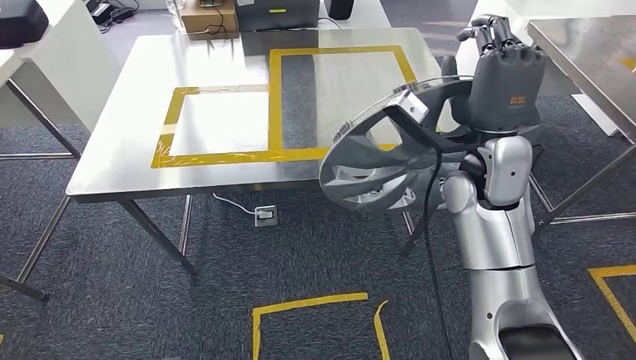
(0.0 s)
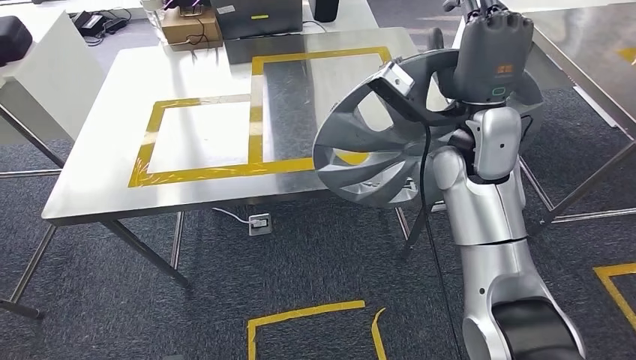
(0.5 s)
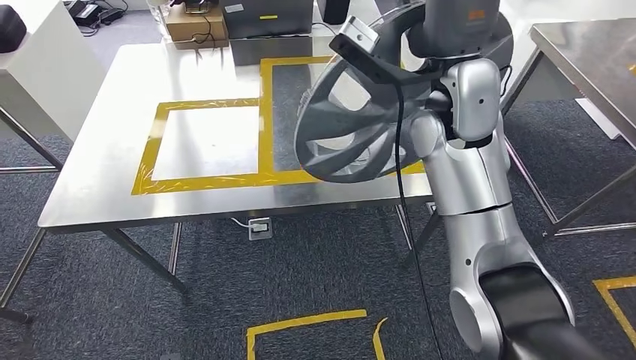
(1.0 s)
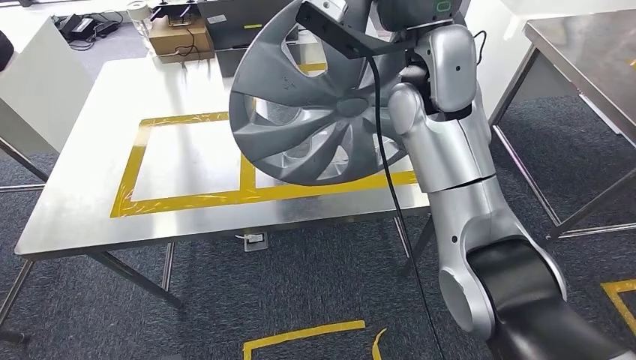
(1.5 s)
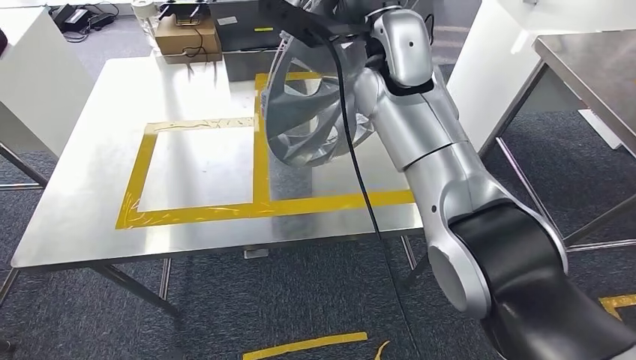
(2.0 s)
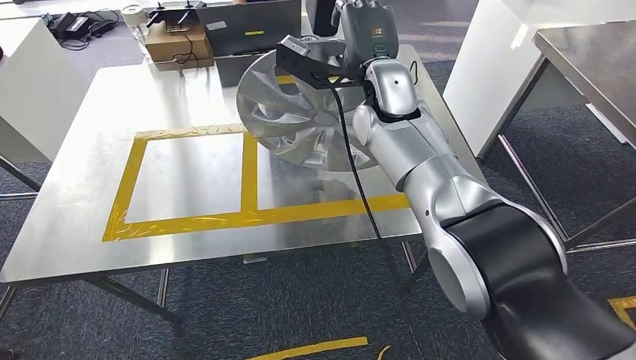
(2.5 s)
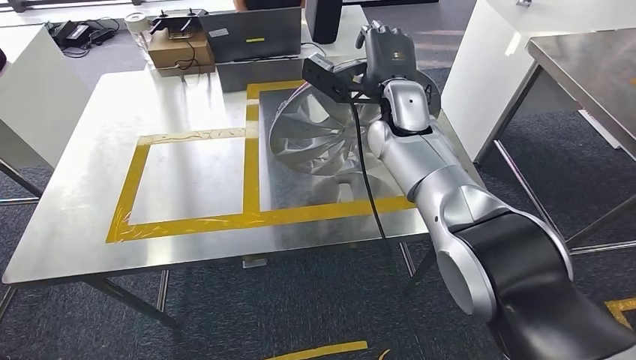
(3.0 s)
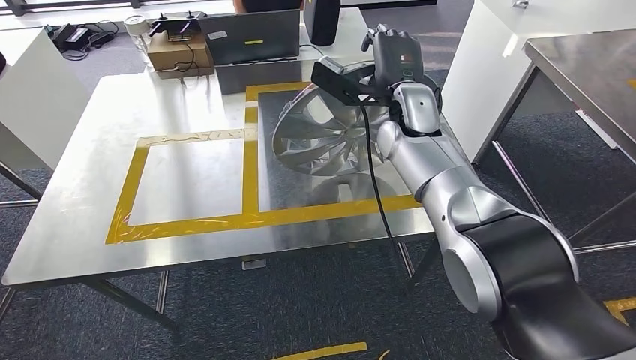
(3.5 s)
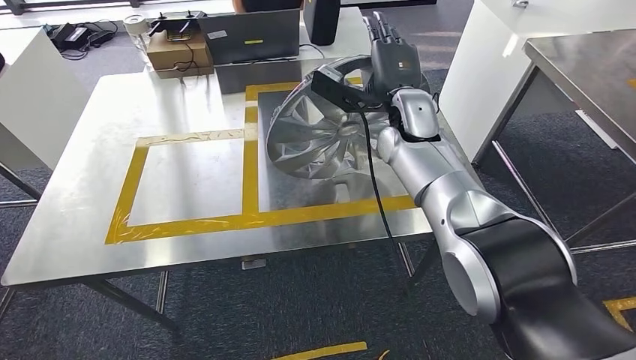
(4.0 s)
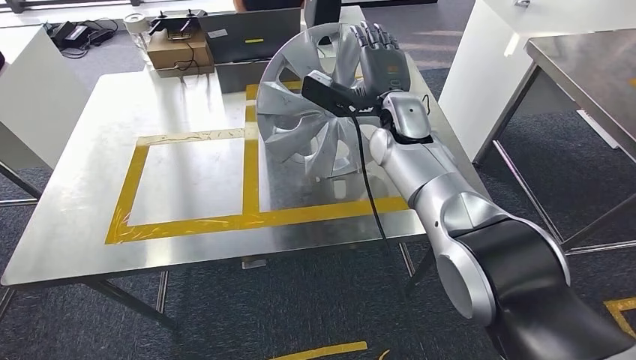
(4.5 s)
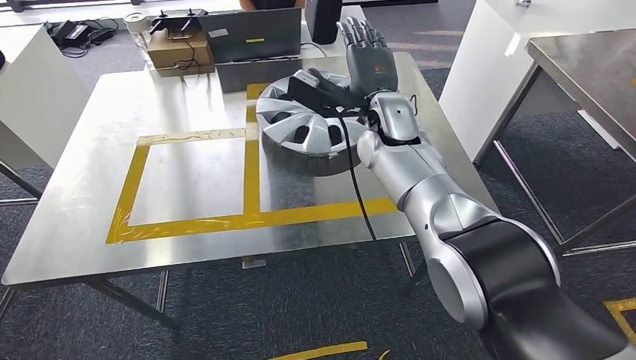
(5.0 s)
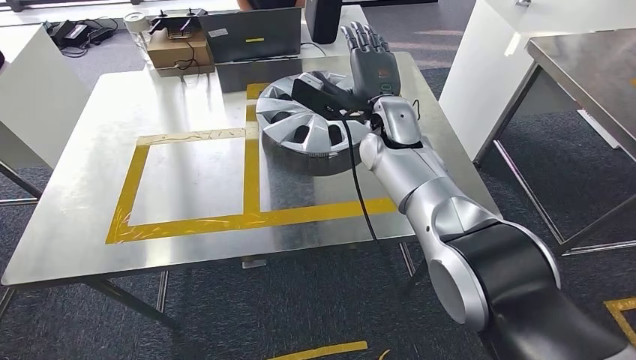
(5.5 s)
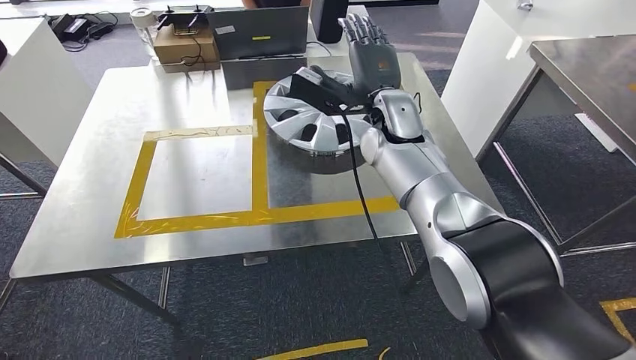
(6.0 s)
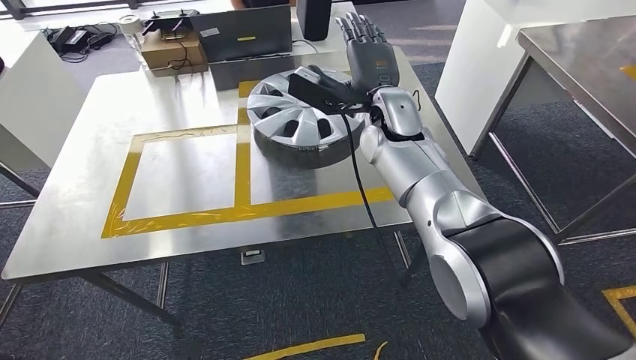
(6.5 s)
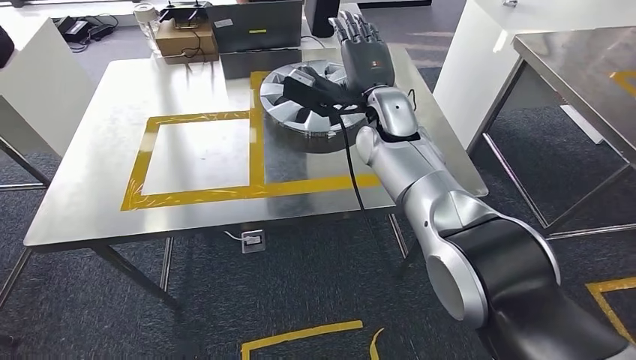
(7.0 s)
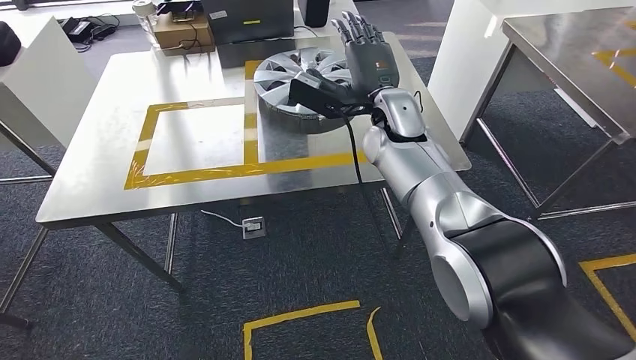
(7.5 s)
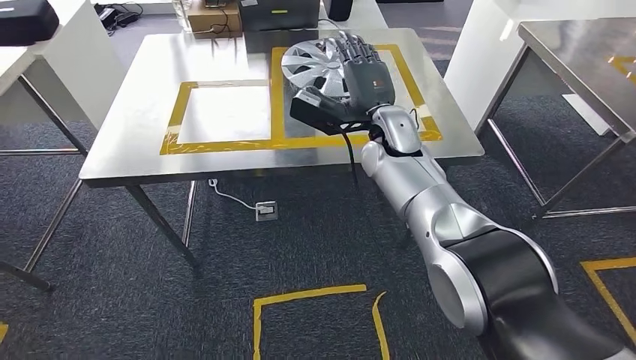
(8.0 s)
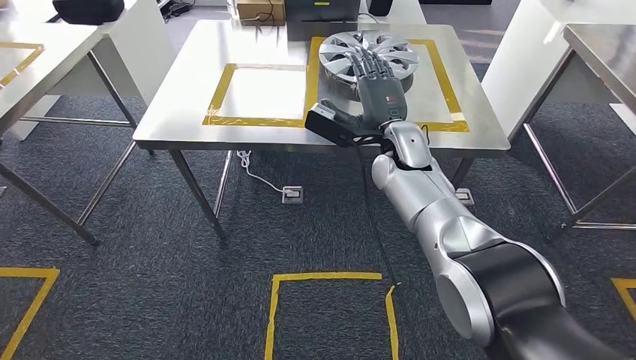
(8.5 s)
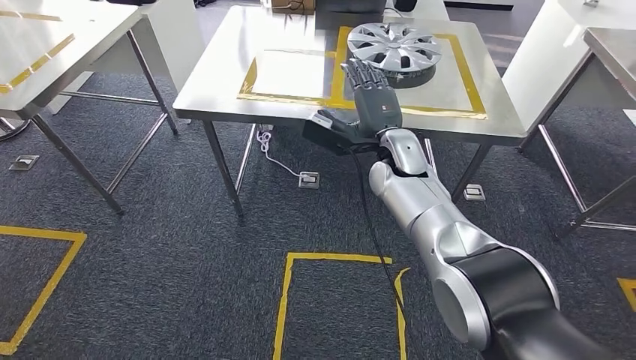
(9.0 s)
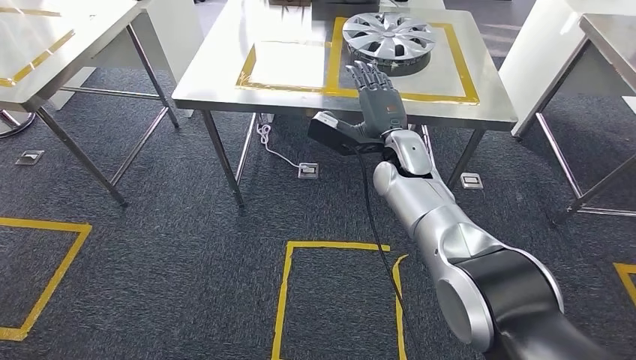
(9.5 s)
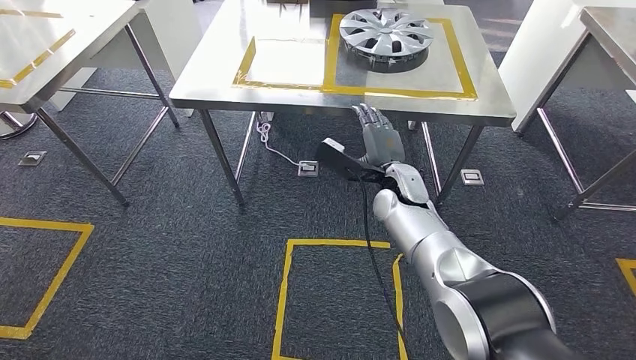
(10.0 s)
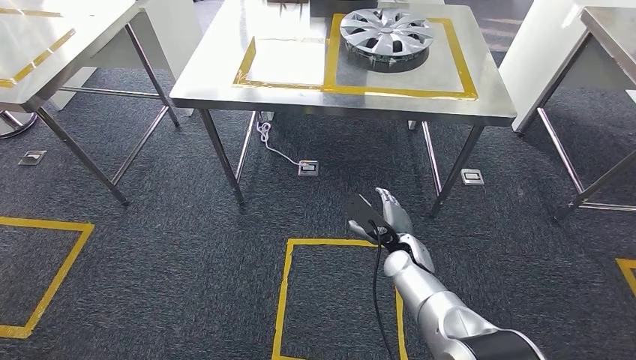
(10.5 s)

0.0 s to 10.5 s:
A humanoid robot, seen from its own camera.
Step, 0.0 to 6.0 s: Insert the small component into the corresponding slot on the workbench.
Step, 7.0 to 10.5 s: Return to the initial position at the workbench.
